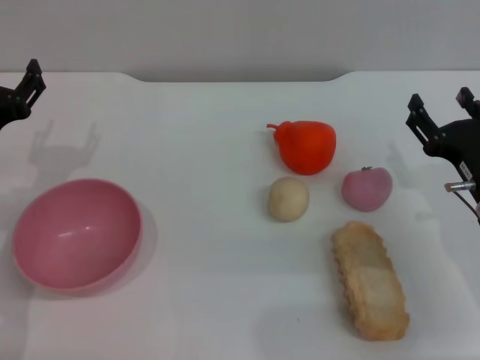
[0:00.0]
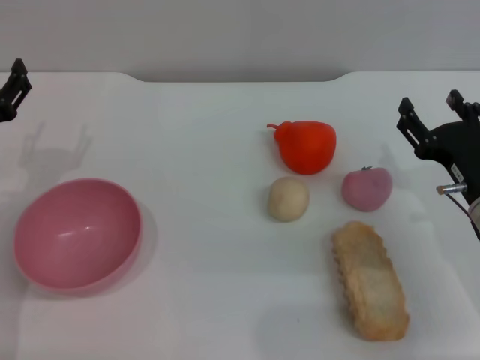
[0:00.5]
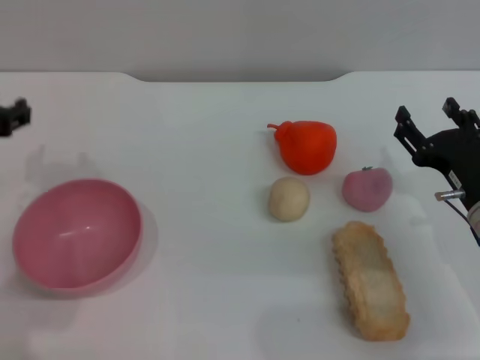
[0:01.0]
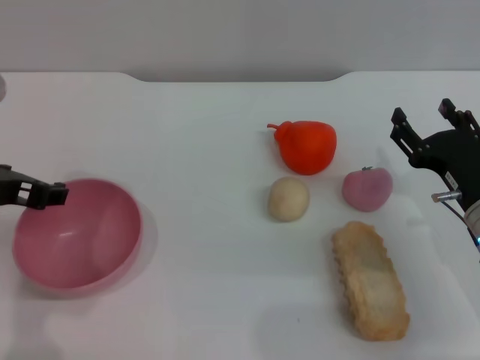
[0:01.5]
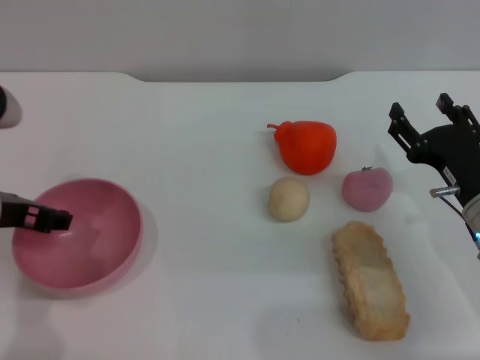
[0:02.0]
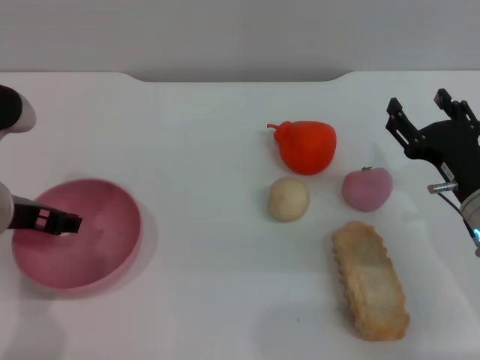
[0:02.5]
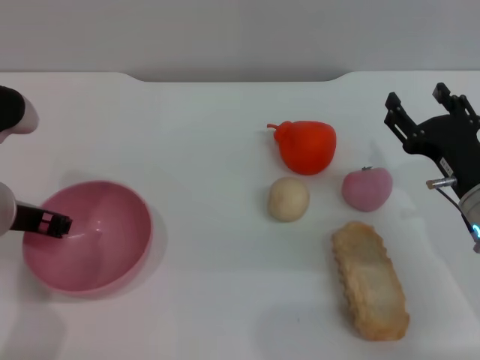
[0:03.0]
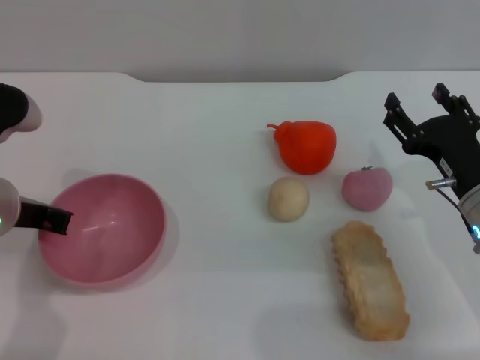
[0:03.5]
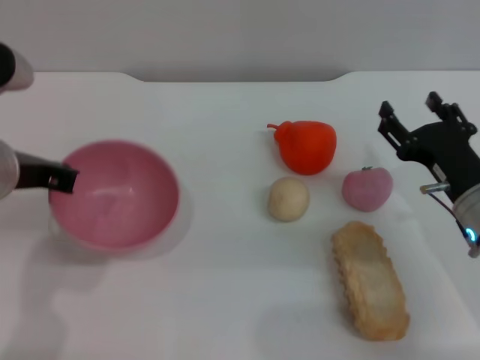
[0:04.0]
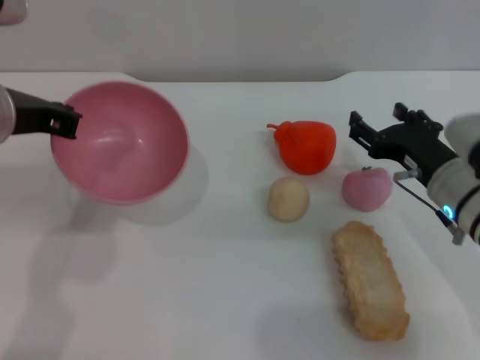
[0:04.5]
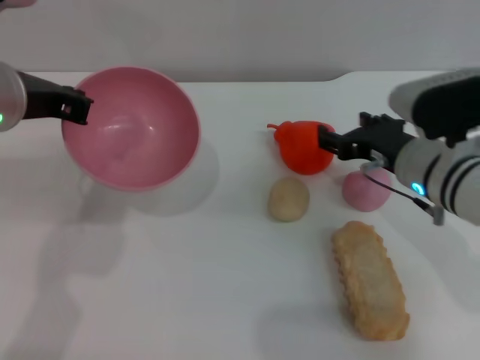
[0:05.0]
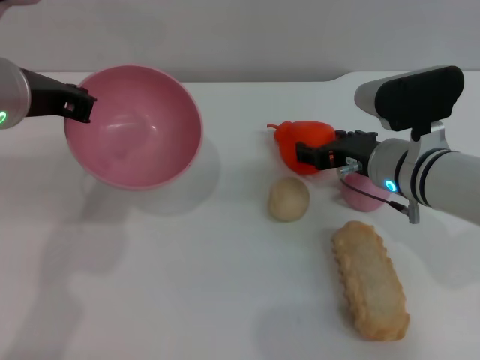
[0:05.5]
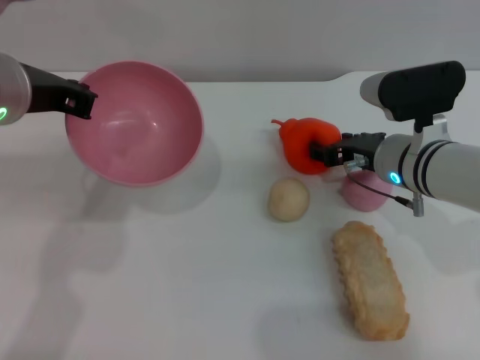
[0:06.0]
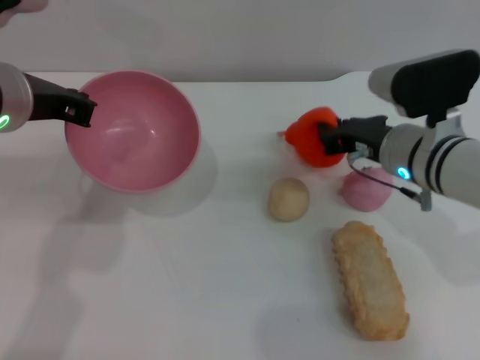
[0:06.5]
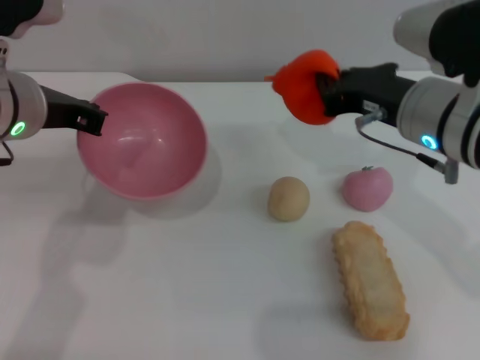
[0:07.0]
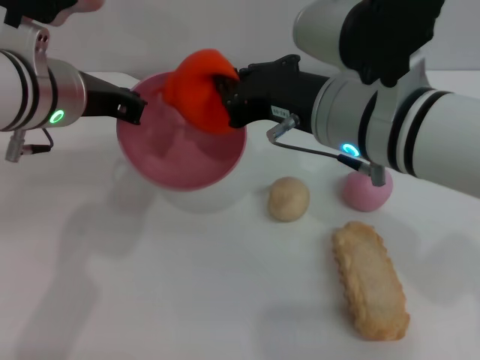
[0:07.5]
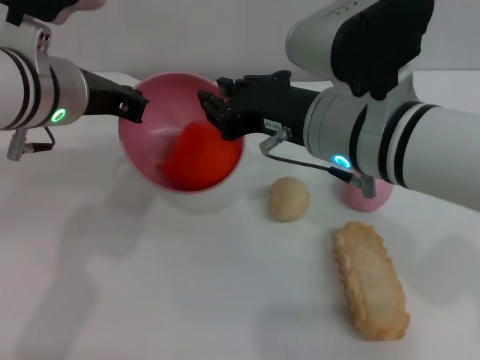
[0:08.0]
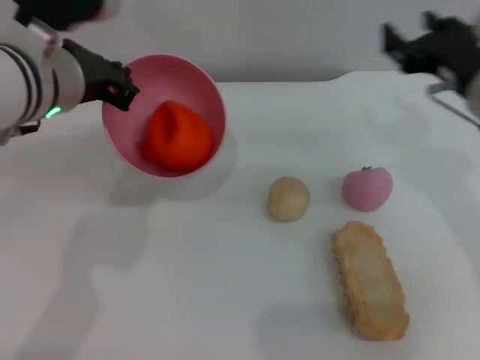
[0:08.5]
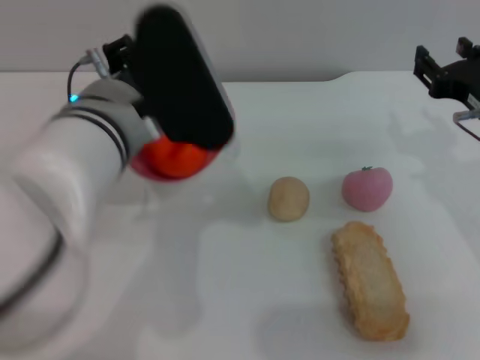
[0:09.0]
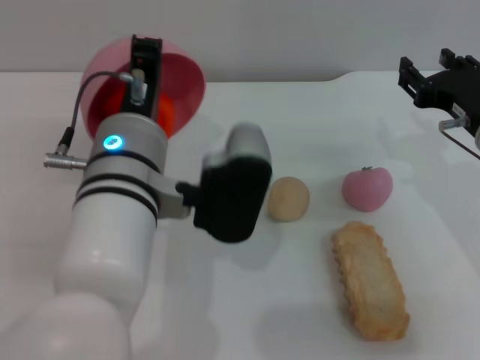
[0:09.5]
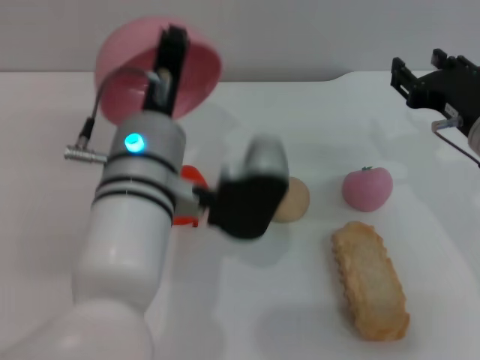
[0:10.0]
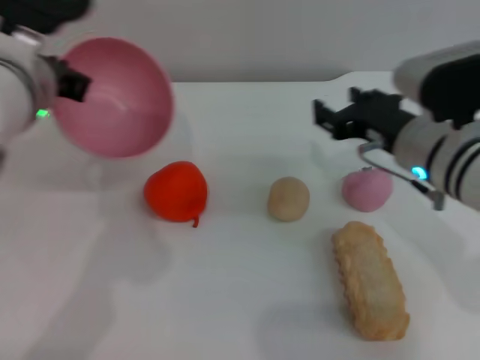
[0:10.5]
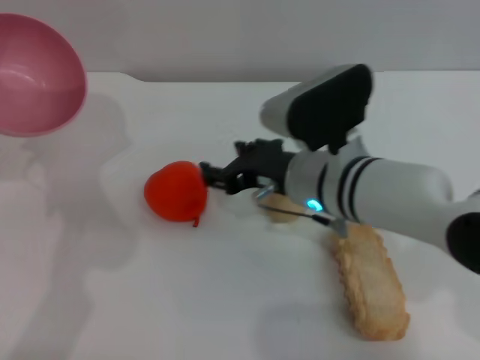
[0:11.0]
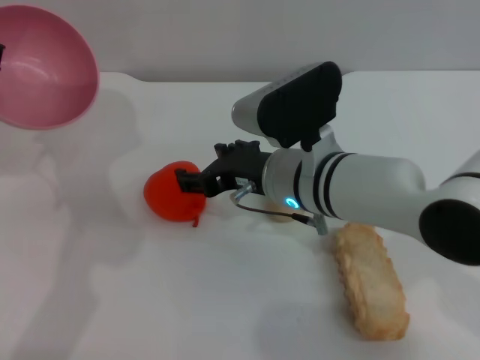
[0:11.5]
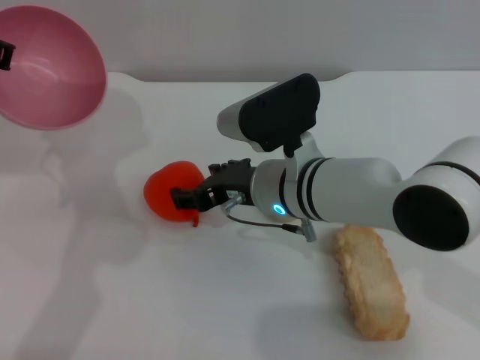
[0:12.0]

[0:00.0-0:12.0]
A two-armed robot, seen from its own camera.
Task of the whole recording: put the orange into the pink bowl and pour it out repeatedly.
Step, 0:00.0 to 0:04.5: Pick up the bowl with the left gripper.
Step, 0:05.0 to 0:06.5: Pick up the orange with the right gripper.
Step, 0:07.0 to 0:08.5: Place the orange into the bowl.
Step, 0:09.0 to 0:10.0: Pour the orange out of the bowl.
0:00.0 to 0:02.0: The left gripper is displaced upward by roughly 5 cm.
0:02.0 to 0:04.0: The left gripper closes up.
0:04.0 to 0:06.0: The right gripper heads forward and to the left, covering some 10 cm. The left gripper moves upward, about 5 cm.
0:06.0 to 0:08.0: The right gripper travels upward, to the left and backward by roughly 15 cm, and closes its fingers.
0:08.0 to 0:10.0: The left gripper travels to the right, backward and downward by roughly 15 cm, while the right gripper moves to the right and downward, some 15 cm, and opens up.
0:10.0 to 0:12.0: The right gripper shifts approximately 20 cm to the left, while the left gripper shifts approximately 20 cm to the left, upward and forward.

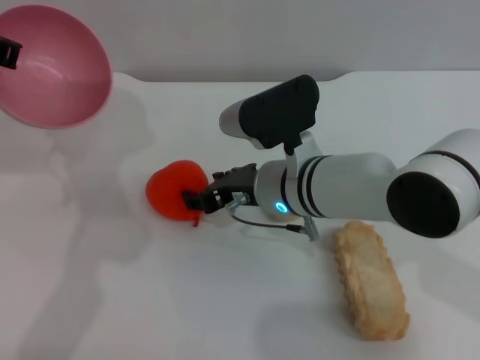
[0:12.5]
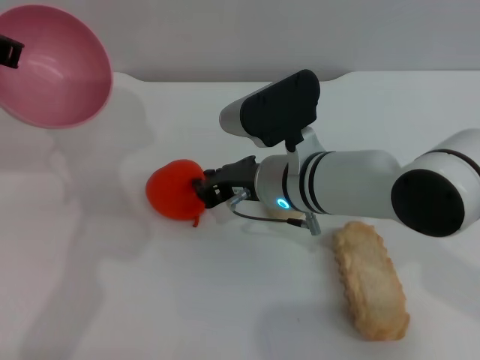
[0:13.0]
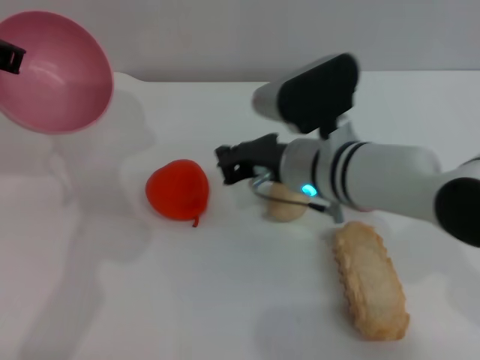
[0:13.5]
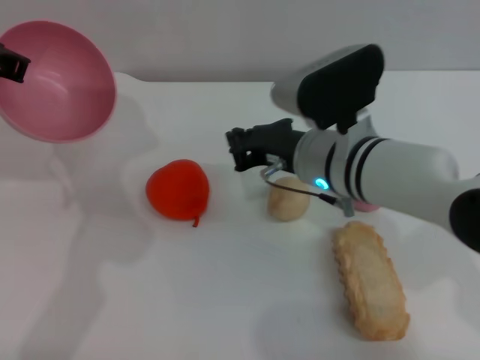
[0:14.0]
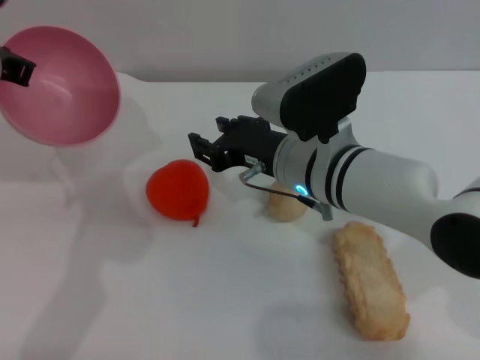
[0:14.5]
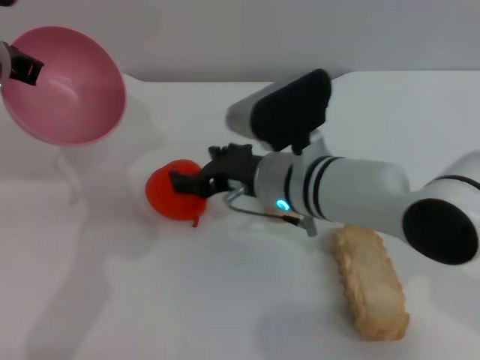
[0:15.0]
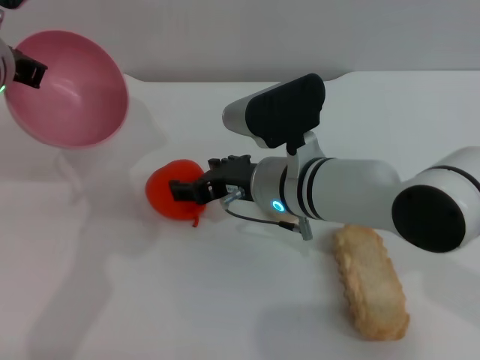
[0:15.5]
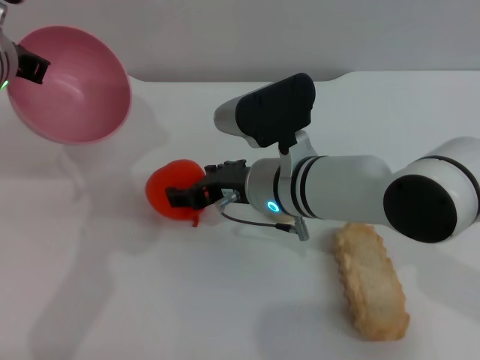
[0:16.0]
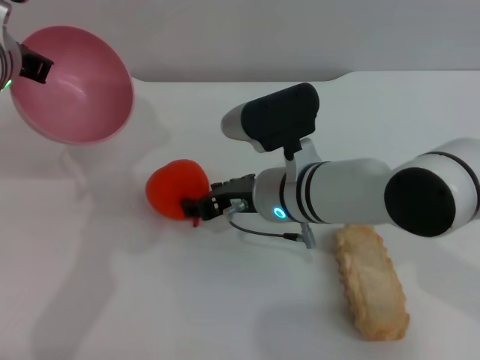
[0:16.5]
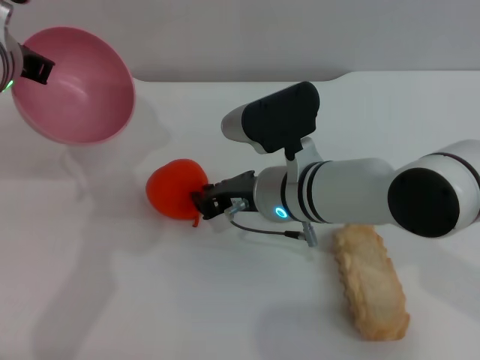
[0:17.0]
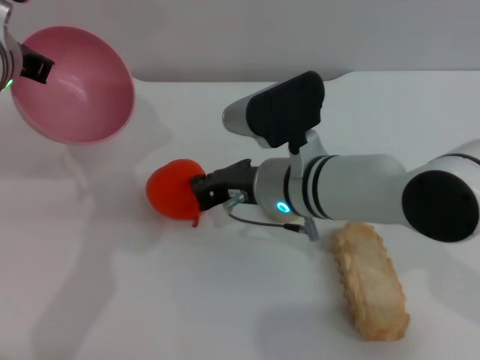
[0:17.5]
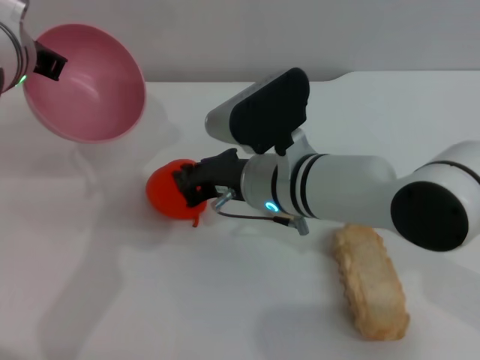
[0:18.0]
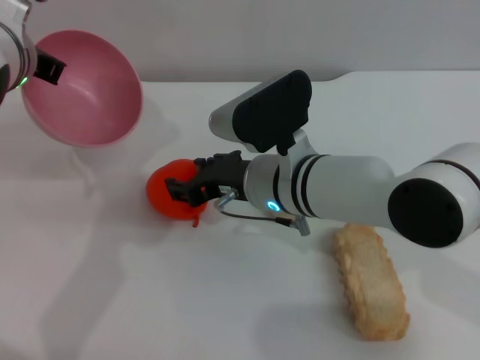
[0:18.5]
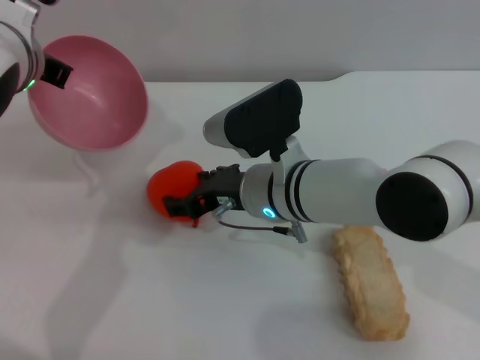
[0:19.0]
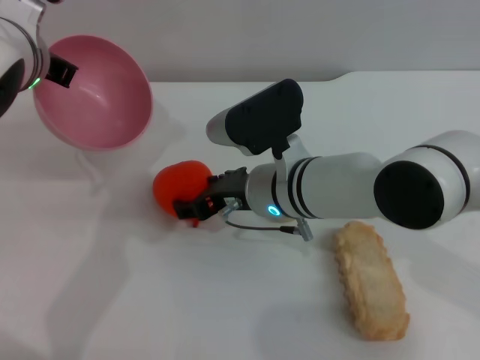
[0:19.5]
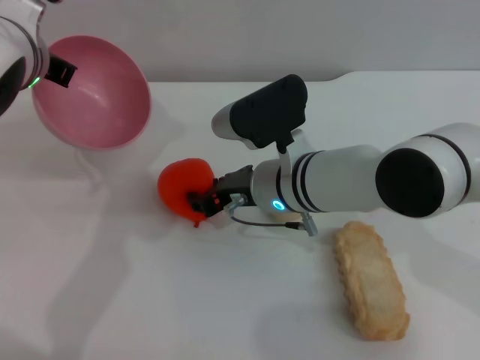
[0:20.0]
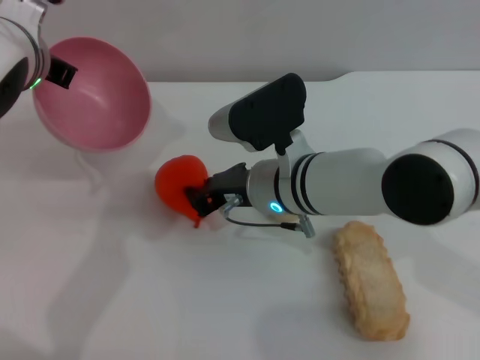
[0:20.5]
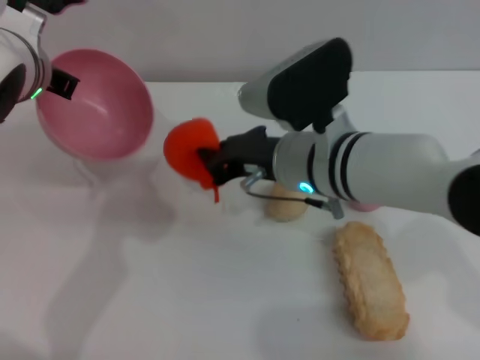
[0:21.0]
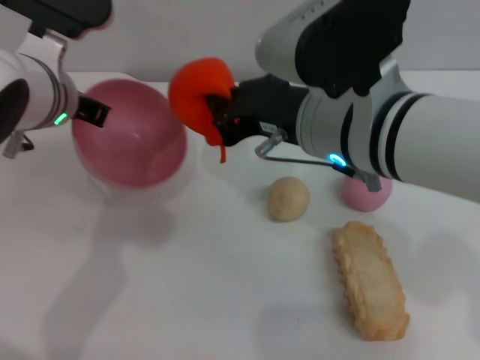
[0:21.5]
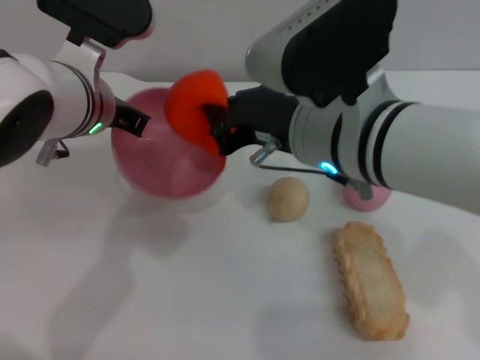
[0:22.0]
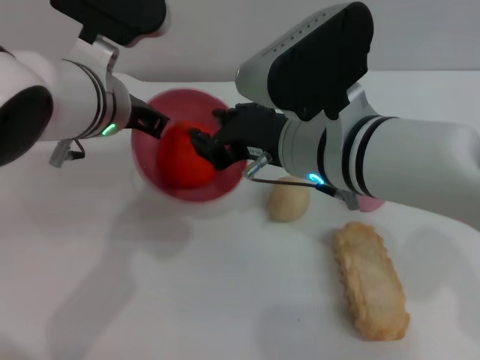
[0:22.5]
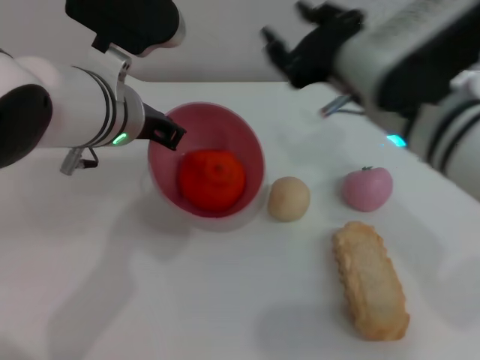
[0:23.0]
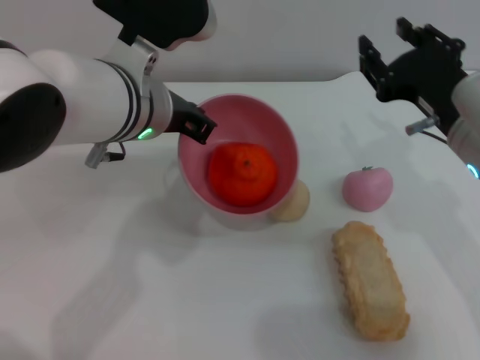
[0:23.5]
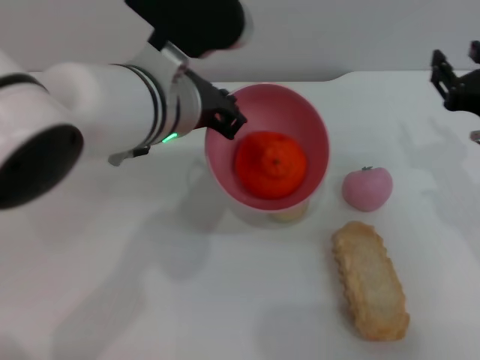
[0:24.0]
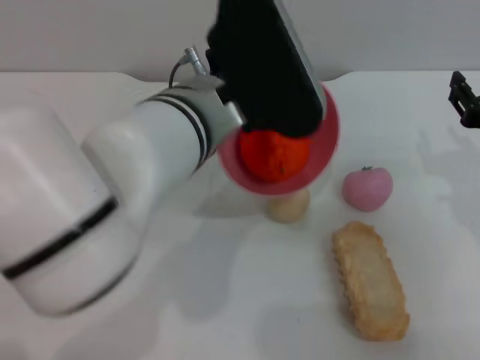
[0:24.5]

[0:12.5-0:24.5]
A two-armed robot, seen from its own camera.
Task of the whole recording: put the orange into the pink bowl and pour it out repeatedly.
Step, 0:12.5 to 0:20.5: Pick up the orange with the right gripper.
Step, 0:21.0 to 0:22.5: Place the orange into the bowl.
0:12.5 to 0:14.5: The right gripper closes up.
0:14.5 to 0:16.5: The right gripper opens.
0:16.5 to 0:18.5: The right gripper closes up.
0:18.5 to 0:20.5: The right gripper opens and closes again.
0:20.5 to 0:22.5: The left gripper is displaced to the right by about 5 cm; the right gripper goes roughly 10 cm upward.
0:22.5 to 0:24.5: The left gripper heads to the right, covering approximately 10 cm; the right gripper heads to the right, covering approximately 20 cm, and opens.

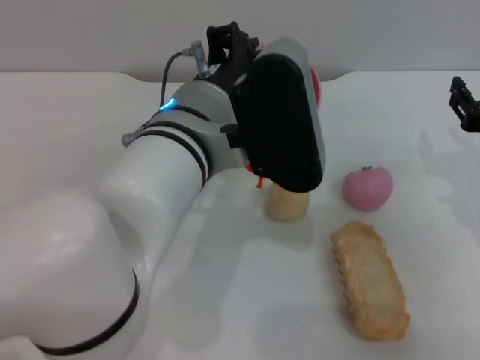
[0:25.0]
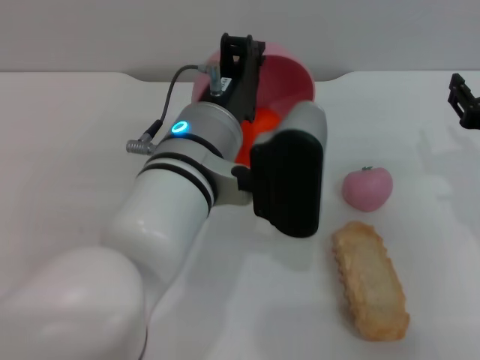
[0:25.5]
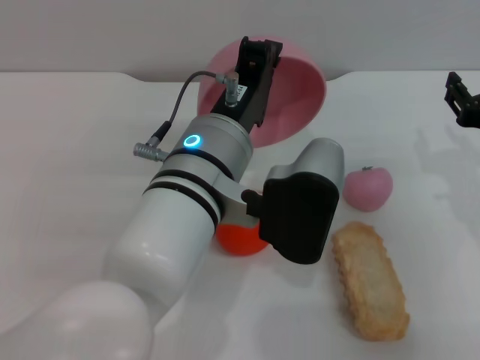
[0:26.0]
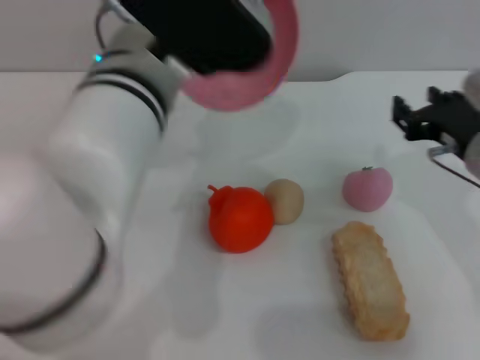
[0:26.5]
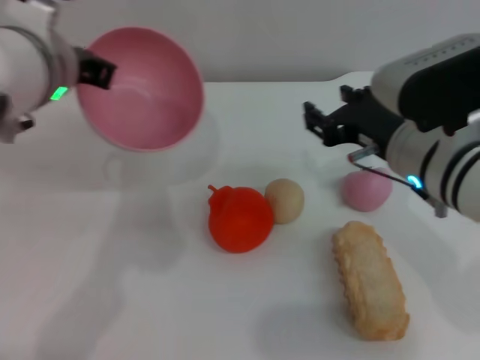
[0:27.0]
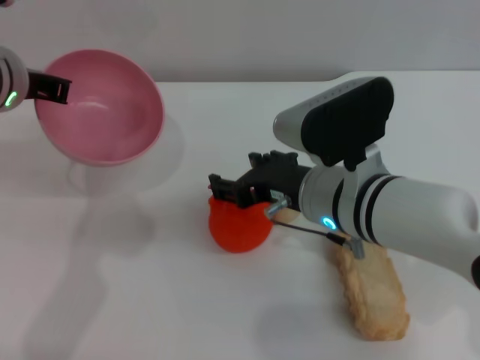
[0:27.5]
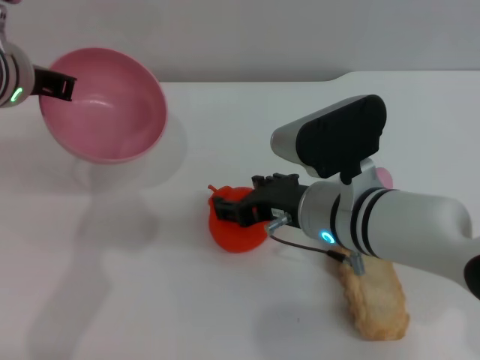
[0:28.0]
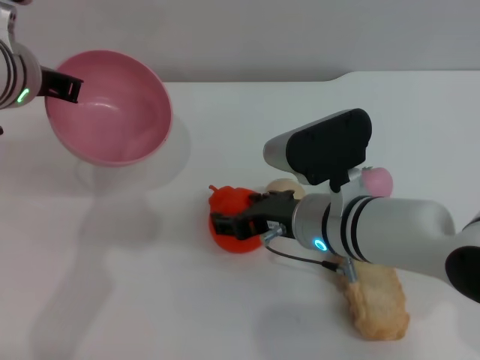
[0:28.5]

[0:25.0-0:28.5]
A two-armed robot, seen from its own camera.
Task of the whole recording: put the orange into the pink bowl and pour it out repeatedly.
0:25.0 to 0:27.0: Both grippers move to the left, roughly 10 cm.
0:27.0 to 0:28.5: The right gripper travels to the left and downward by roughly 10 cm.
